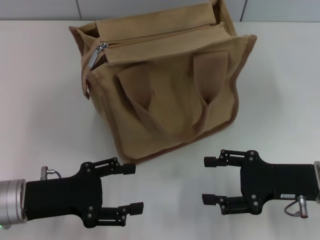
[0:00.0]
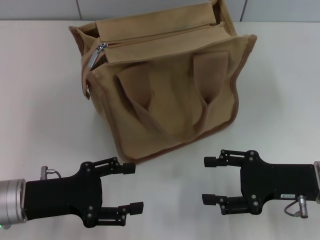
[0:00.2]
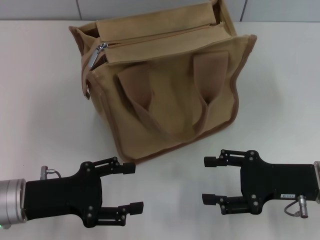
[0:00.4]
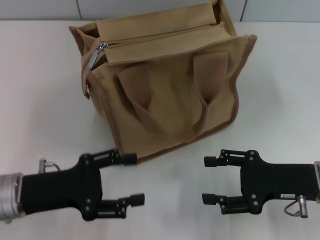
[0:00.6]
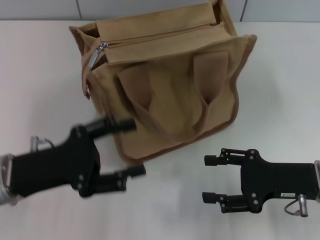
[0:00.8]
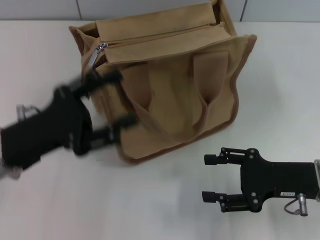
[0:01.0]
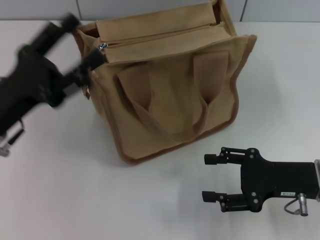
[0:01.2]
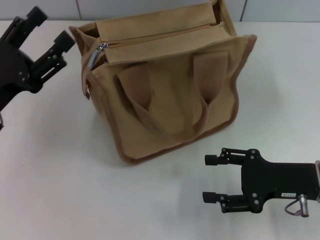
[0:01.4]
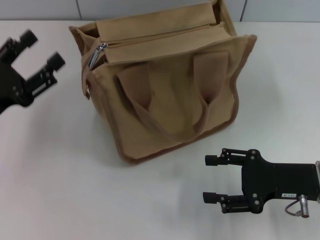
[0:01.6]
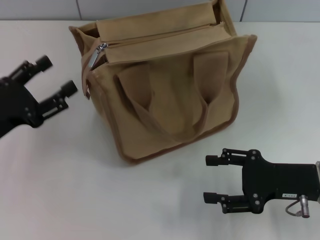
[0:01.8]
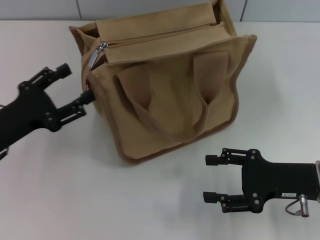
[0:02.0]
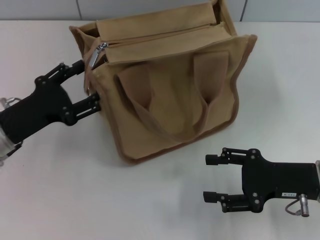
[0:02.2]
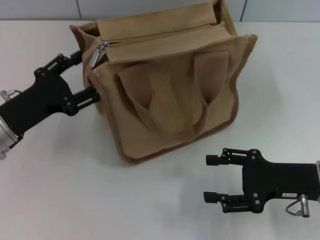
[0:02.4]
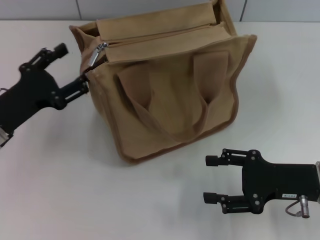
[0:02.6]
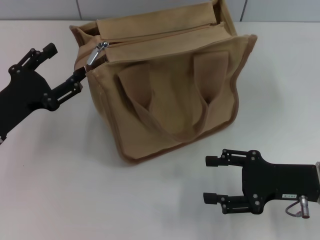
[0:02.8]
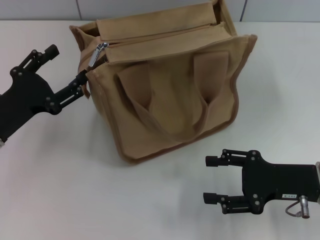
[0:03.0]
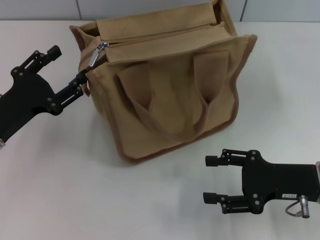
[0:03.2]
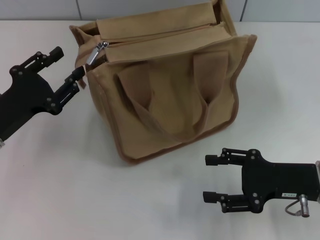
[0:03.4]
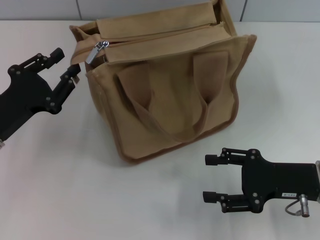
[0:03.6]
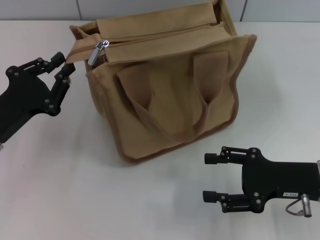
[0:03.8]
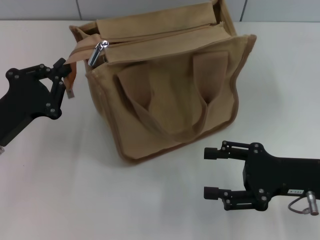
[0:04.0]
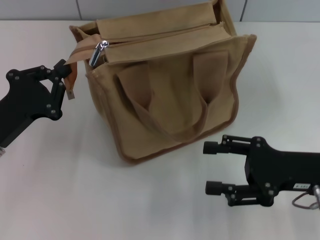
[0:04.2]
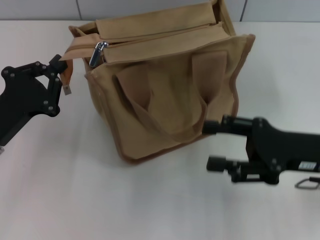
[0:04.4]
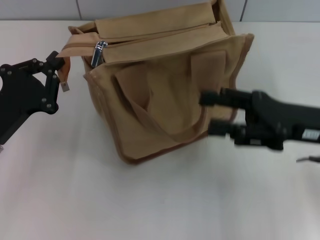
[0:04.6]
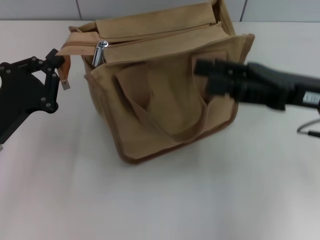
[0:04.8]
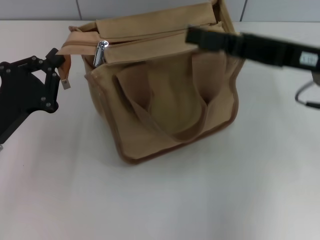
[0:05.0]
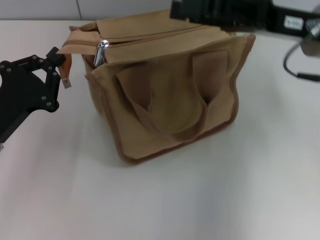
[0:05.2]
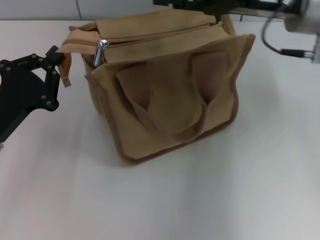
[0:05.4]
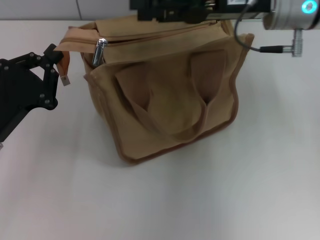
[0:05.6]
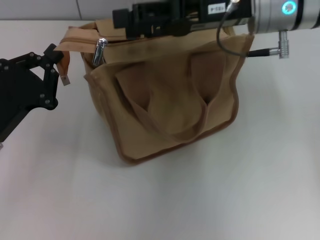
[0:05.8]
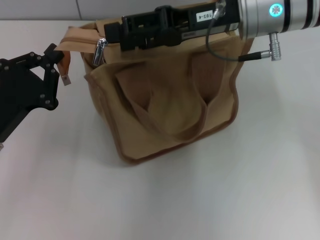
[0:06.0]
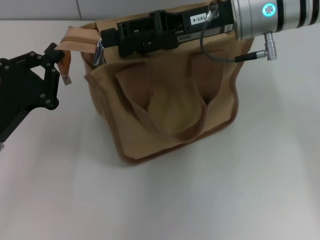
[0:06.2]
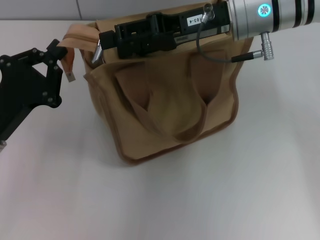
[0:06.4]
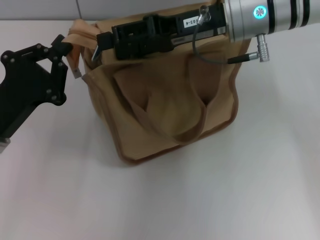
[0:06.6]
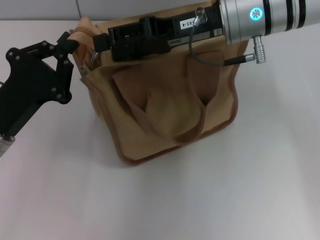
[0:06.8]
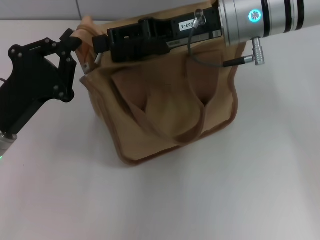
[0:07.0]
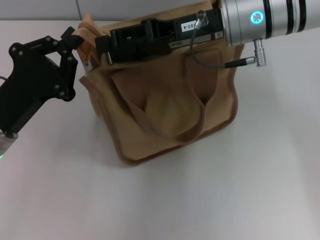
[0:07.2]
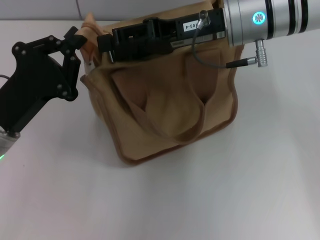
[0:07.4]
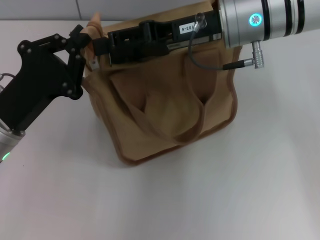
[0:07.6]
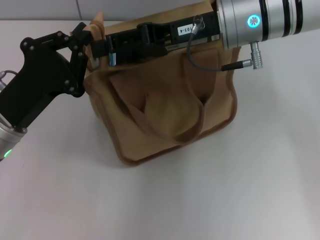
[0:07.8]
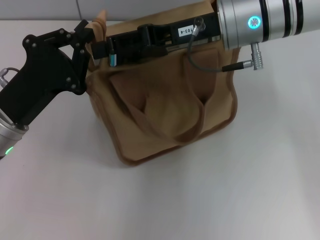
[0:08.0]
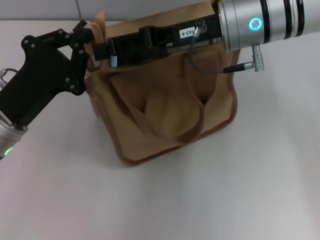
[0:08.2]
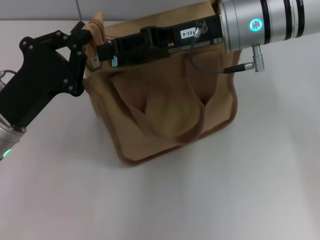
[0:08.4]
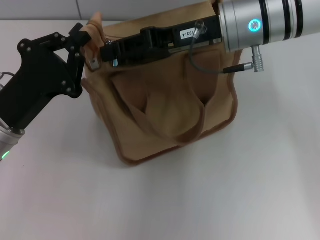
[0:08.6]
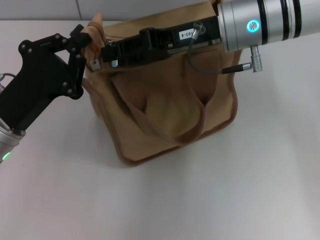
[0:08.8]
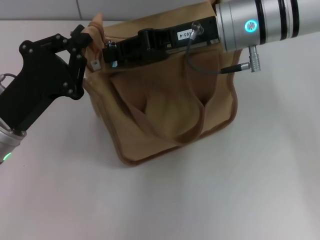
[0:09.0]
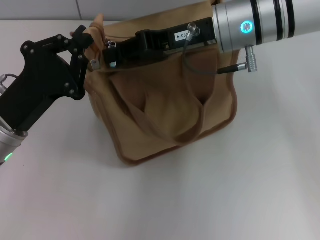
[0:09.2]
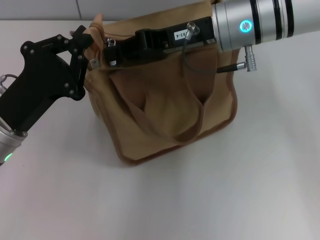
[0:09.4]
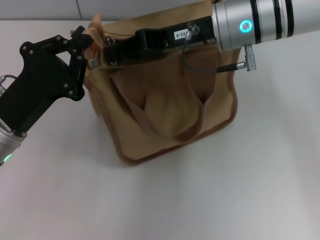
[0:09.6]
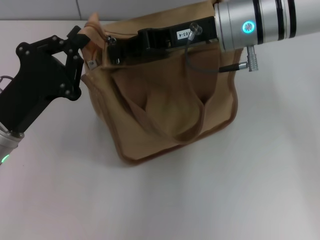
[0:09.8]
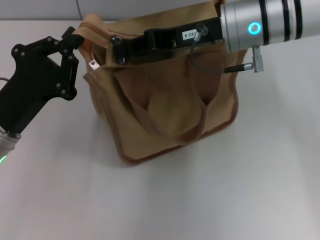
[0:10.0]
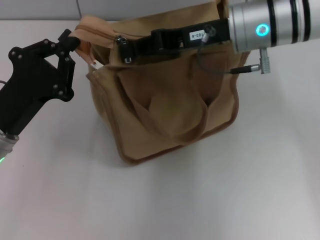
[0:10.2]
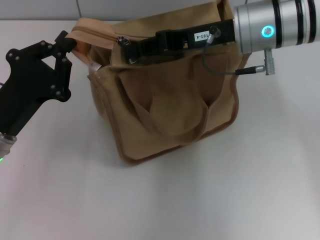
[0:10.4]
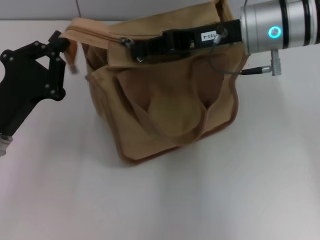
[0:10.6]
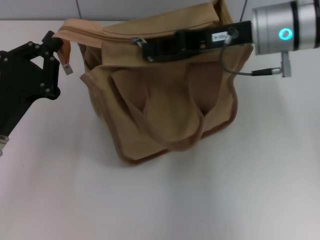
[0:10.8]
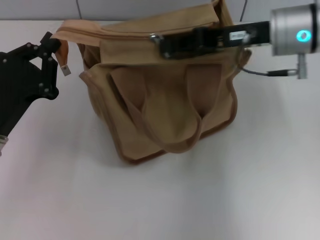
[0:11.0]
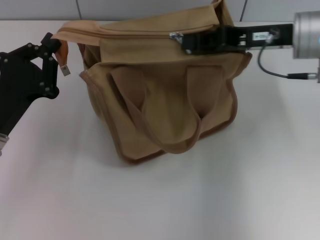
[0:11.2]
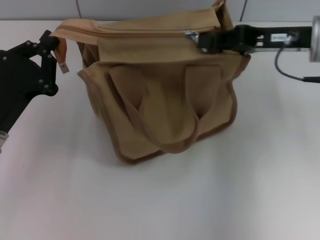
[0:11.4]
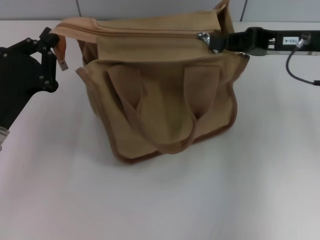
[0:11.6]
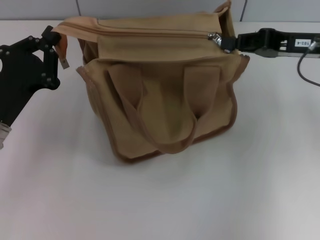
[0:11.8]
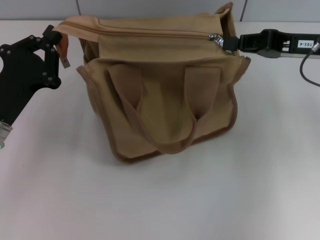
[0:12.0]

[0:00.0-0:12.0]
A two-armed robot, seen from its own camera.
0:00.0 to 0:01.6: The left gripper shifts by about 10 cm.
0:01.6 to 0:03.0: The grippers move only a little.
0:03.0 to 0:04.4: The left gripper closes up. Meanwhile the right gripper ends up about 5 cm from where it was.
0:04.4 to 0:06.0: The right gripper is displaced forward, to the left and upward by about 20 cm.
0:06.0 to 0:07.6: The grippers make only small movements.
0:07.6 to 0:09.0: The right gripper closes up.
0:09.0 to 0:10.4: The right gripper closes.
0:10.4 to 0:12.0: The right gripper heads to the right, covering about 15 cm.

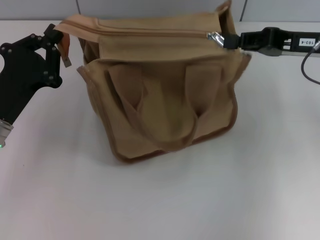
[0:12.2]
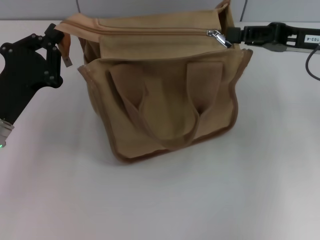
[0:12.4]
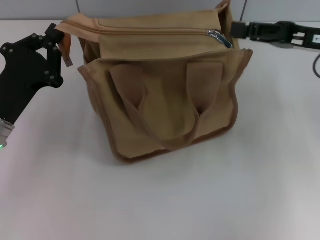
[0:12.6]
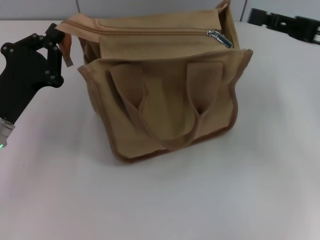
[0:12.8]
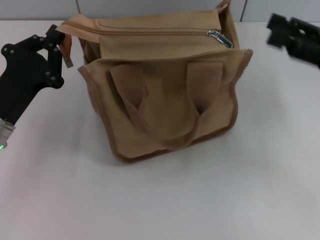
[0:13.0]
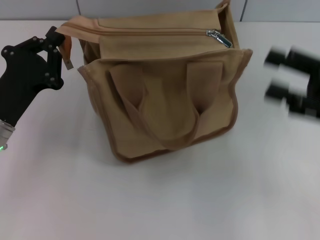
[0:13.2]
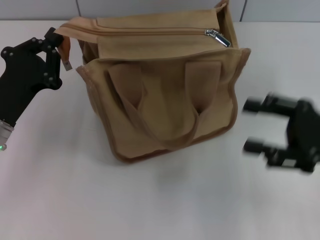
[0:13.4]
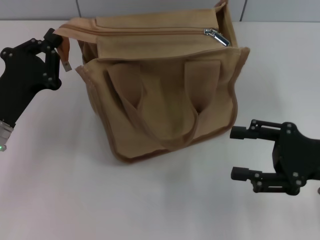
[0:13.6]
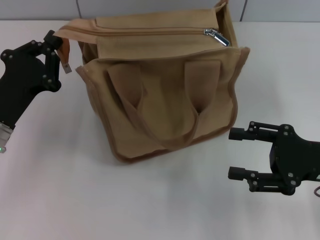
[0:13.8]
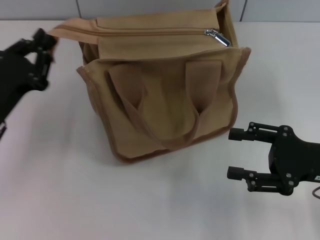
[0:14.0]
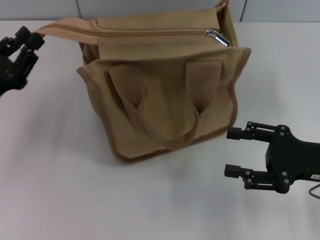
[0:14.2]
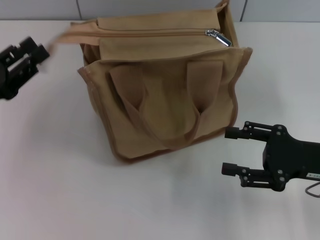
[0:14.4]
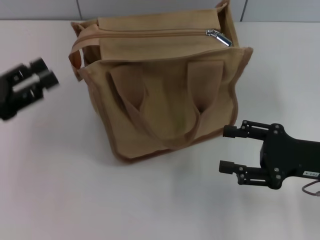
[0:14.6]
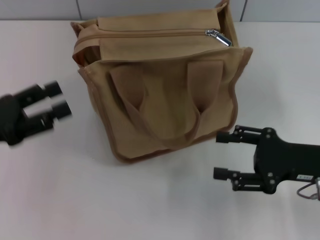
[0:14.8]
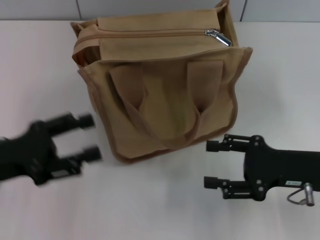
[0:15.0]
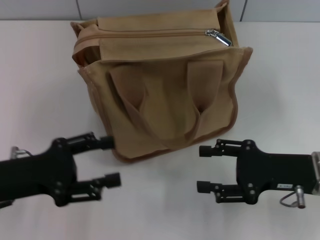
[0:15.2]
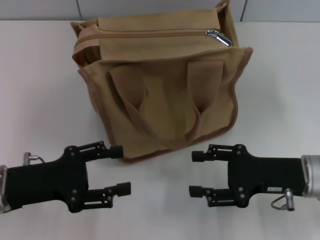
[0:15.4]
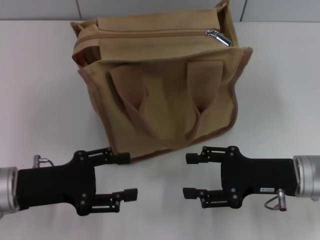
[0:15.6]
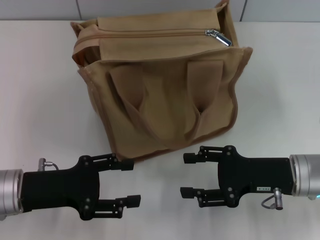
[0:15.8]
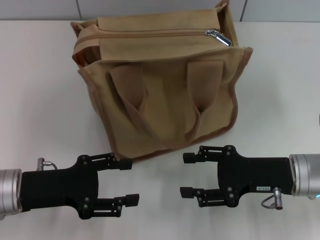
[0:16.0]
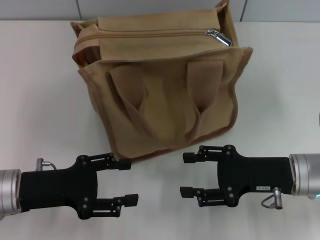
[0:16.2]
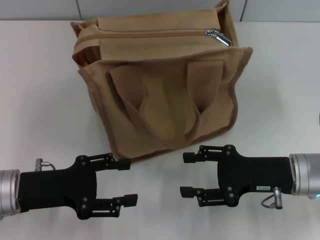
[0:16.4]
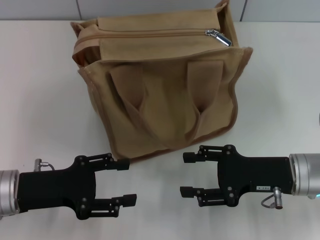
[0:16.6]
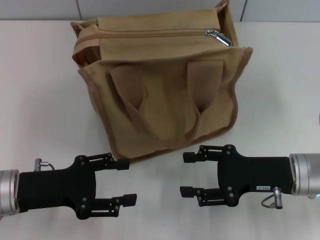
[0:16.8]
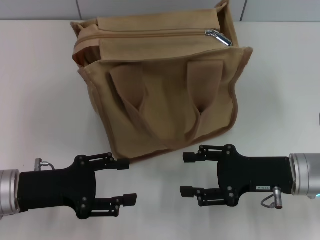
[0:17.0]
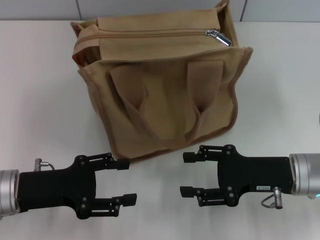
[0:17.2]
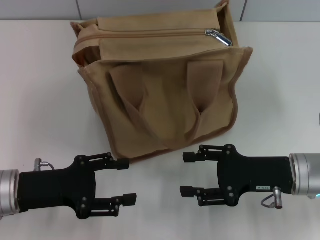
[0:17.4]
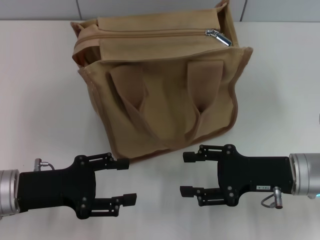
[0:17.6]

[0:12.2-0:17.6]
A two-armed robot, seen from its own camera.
Step, 0:12.8 to 0:14.4: Grab the zipper with your left hand.
0:12.2 to 0:13.6: The right gripper heads backward and downward, covering roughly 15 cm, and opens.
0:13.6 to 0:15.0: The left gripper changes place by approximately 5 cm, and opens.
0:15.0 to 0:16.2: The left gripper ends up some 5 cm from where it was.
0:16.2 to 0:17.6: Neither gripper changes place.

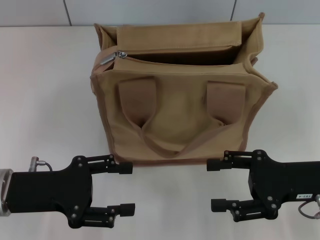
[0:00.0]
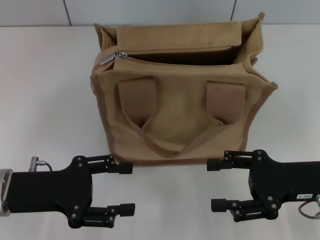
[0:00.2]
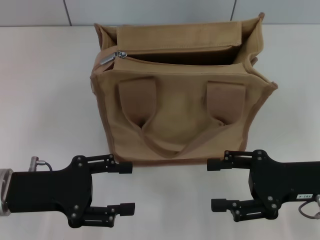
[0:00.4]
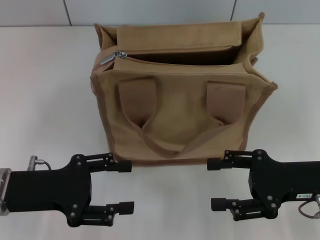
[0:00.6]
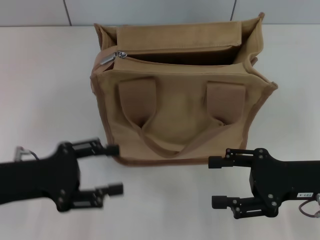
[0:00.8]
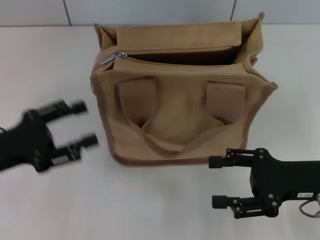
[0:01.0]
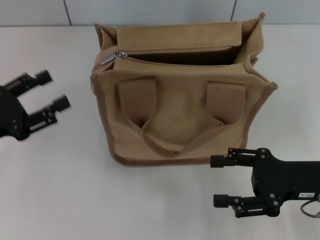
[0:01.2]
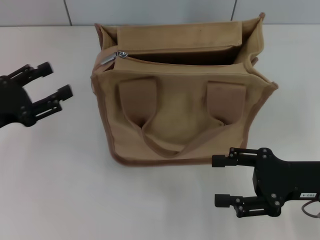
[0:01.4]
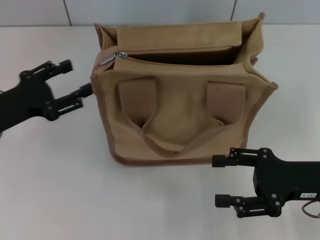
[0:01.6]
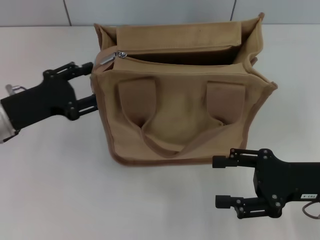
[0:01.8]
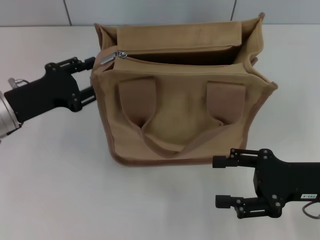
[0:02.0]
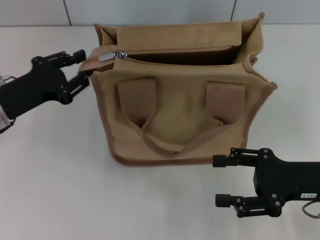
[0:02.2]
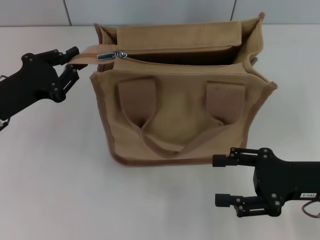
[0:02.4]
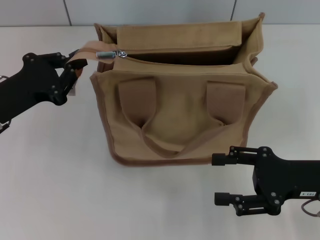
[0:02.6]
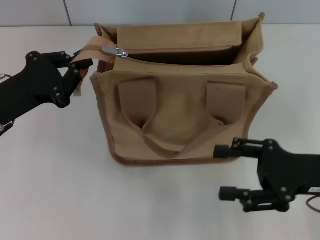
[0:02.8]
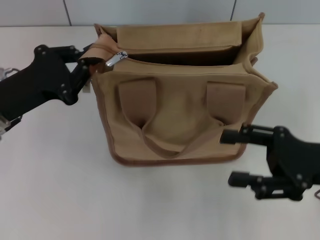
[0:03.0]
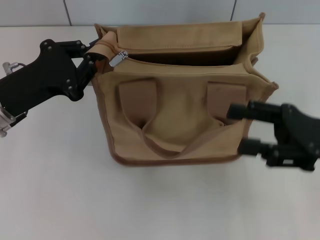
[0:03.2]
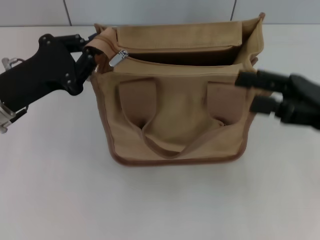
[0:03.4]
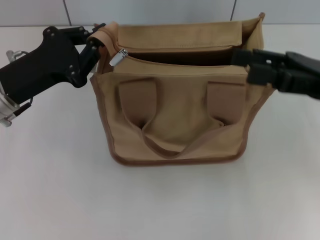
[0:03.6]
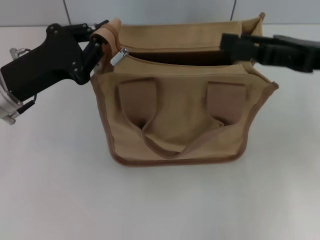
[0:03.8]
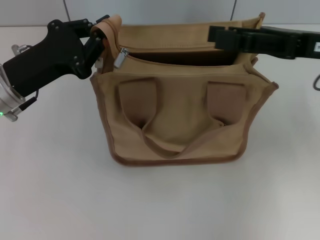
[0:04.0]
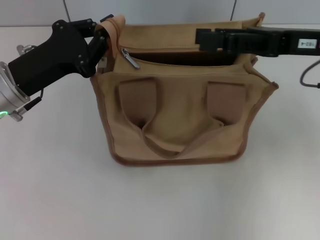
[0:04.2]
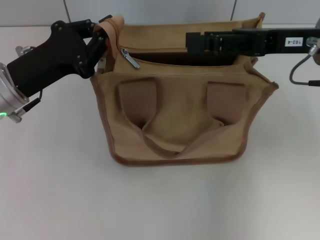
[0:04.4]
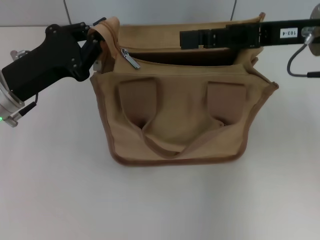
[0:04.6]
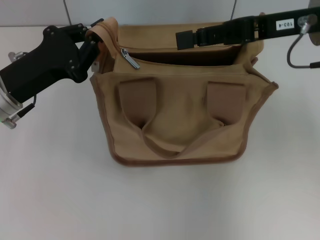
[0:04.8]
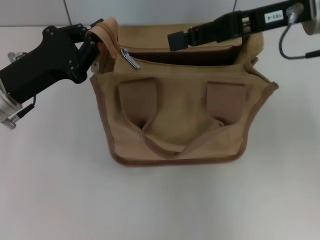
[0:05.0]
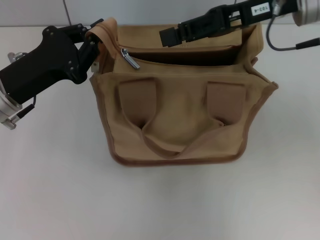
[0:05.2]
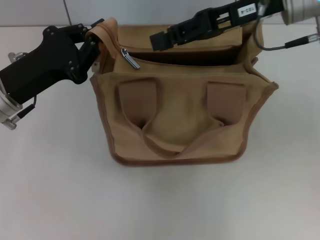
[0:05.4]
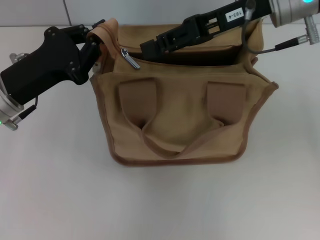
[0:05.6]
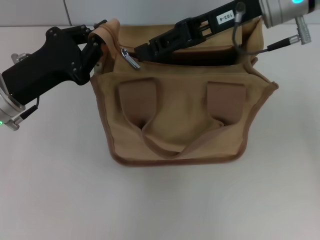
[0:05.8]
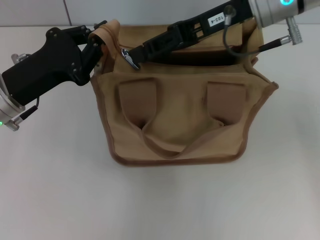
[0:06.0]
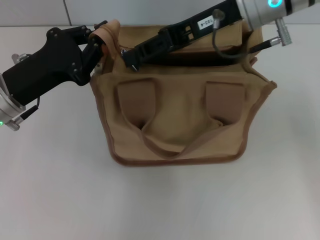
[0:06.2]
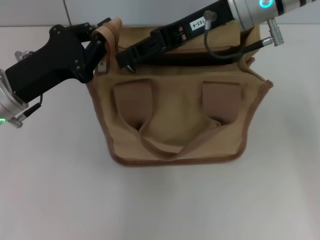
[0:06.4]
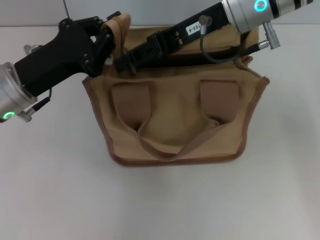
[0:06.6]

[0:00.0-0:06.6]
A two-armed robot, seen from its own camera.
0:00.0 to 0:01.6: The left gripper heads forward, covering roughly 5 cm.
0:01.6 to 0:03.2: The left gripper closes. The right gripper changes place by roughly 5 cm.
0:03.2 to 0:05.0: The right gripper travels forward, upward and to the left by approximately 20 cm.
0:05.0 to 0:06.6: The right gripper goes some 10 cm to the left, and closes its fingers.
